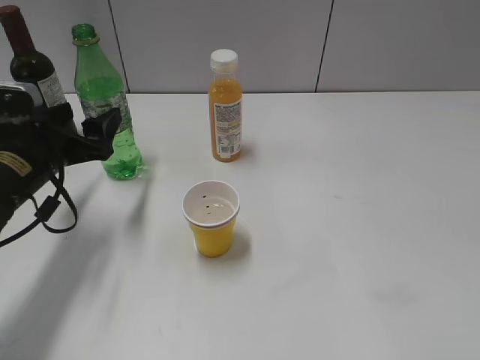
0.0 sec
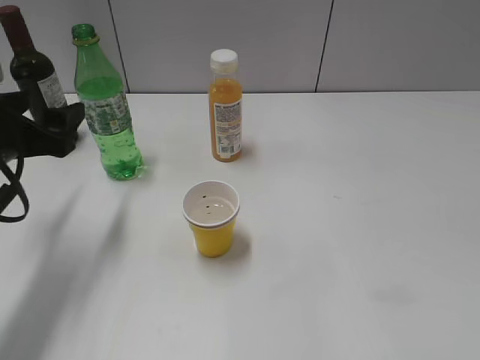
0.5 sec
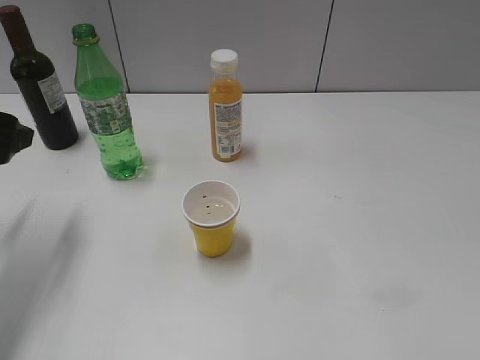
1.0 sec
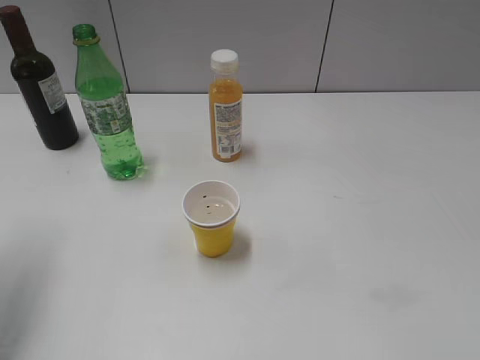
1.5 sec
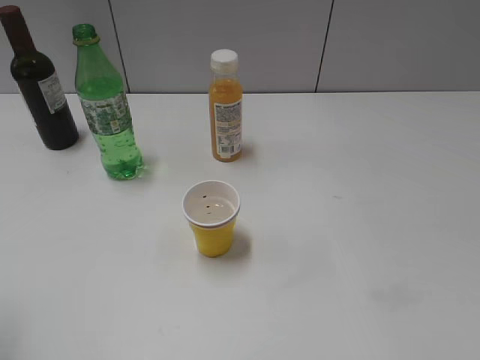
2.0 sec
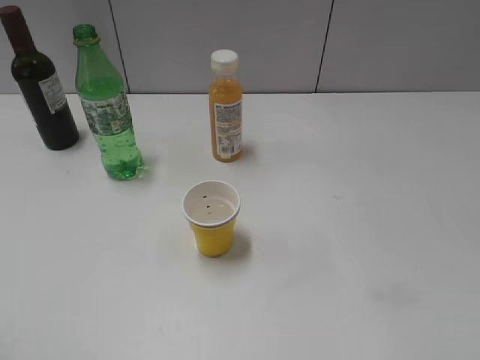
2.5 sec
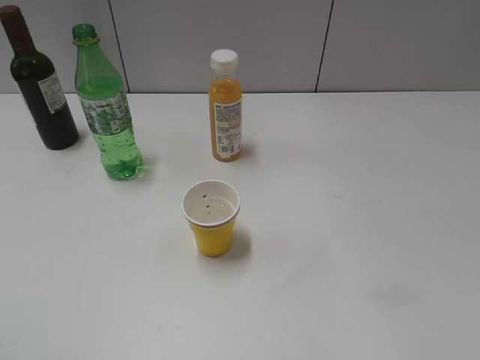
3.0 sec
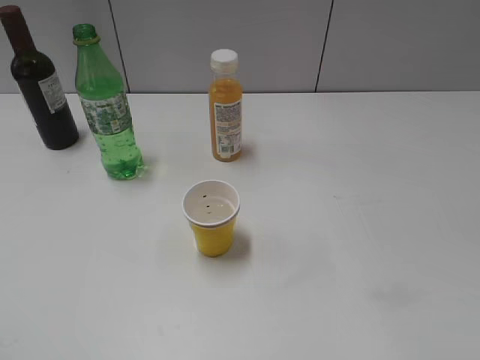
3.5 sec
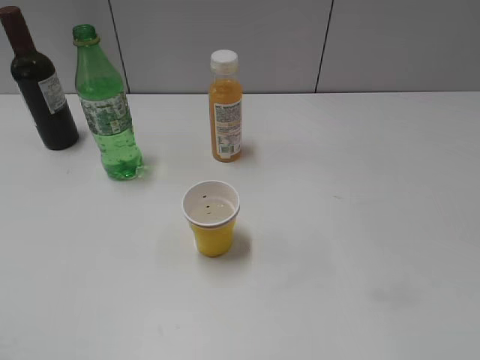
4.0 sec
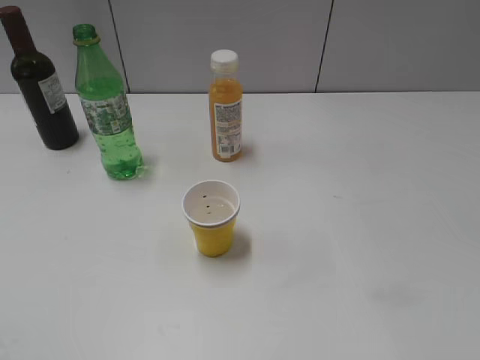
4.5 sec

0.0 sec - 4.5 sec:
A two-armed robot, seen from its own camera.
0.0 sec - 2.0 sec: The left gripper travels backward and upward by roughly 25 cm, and closes its fingers.
